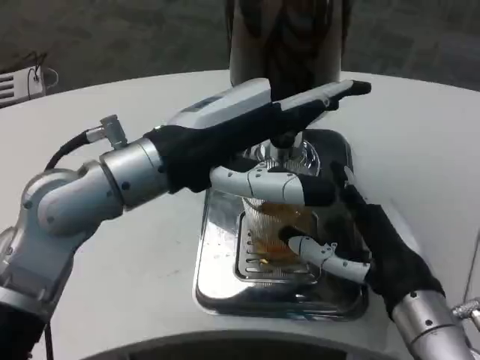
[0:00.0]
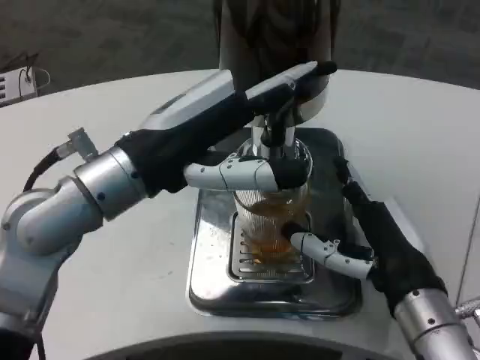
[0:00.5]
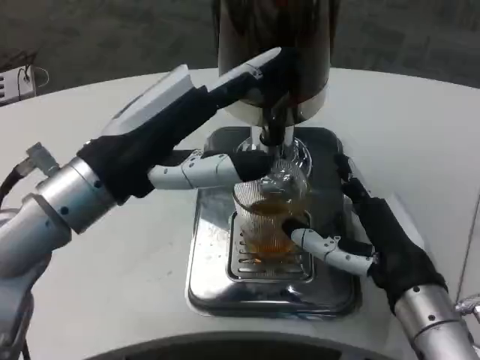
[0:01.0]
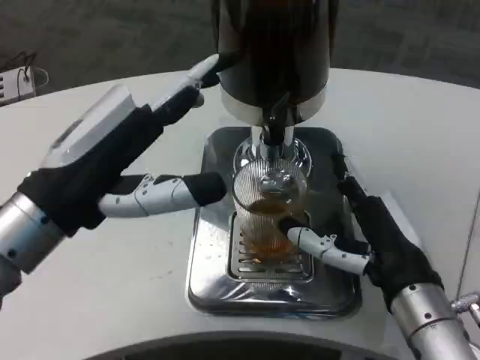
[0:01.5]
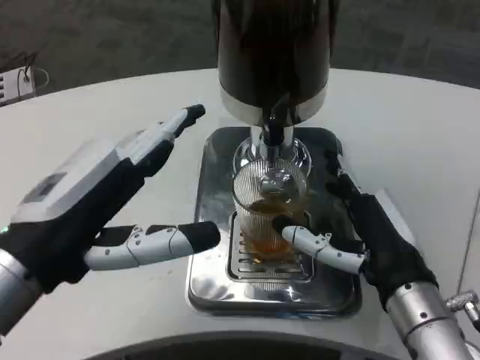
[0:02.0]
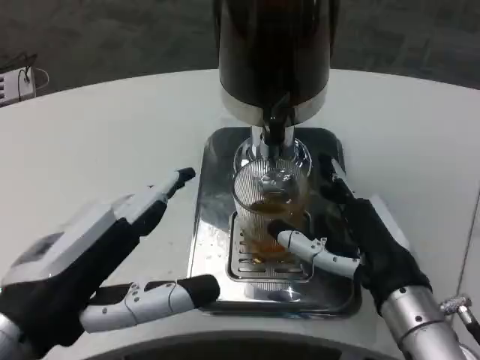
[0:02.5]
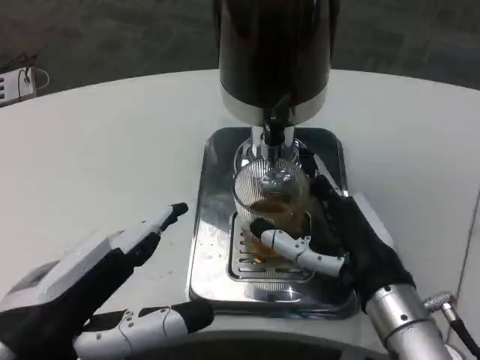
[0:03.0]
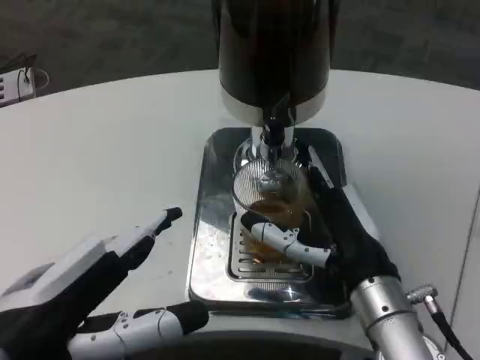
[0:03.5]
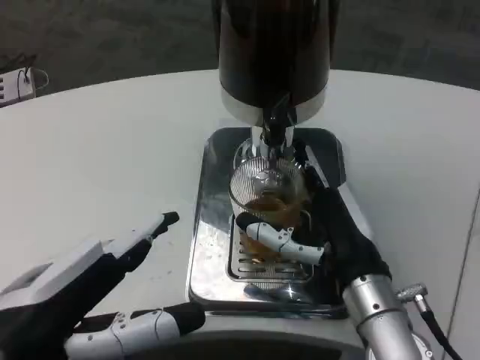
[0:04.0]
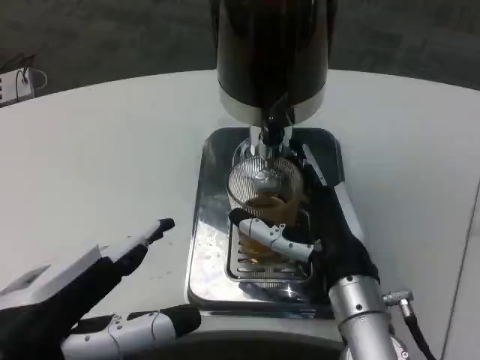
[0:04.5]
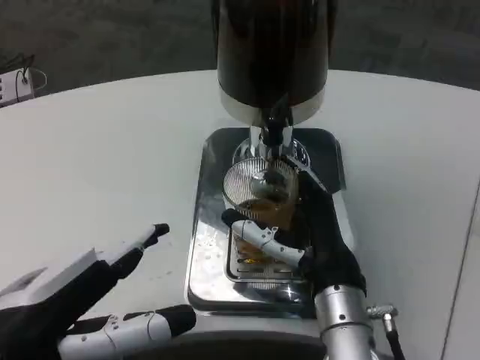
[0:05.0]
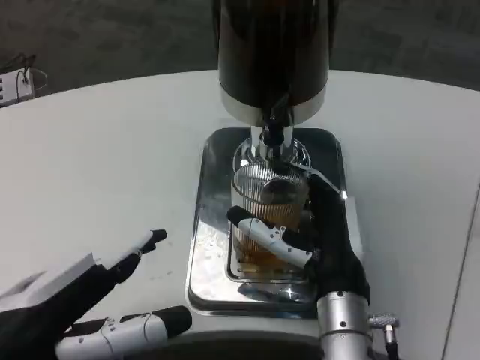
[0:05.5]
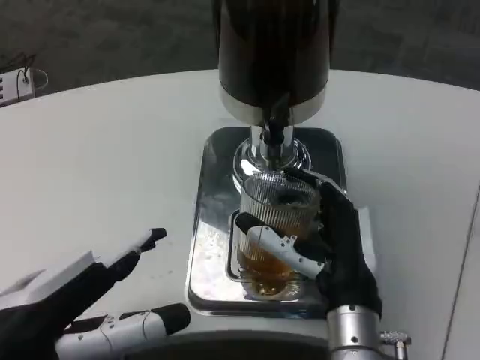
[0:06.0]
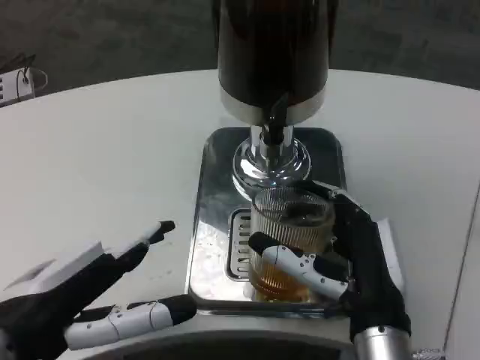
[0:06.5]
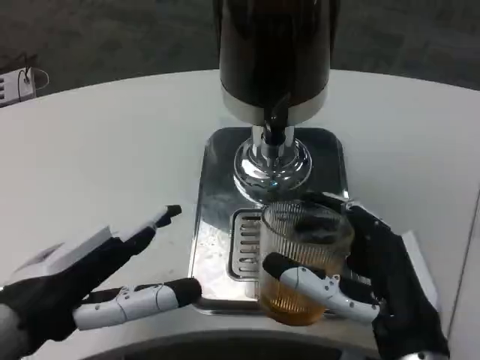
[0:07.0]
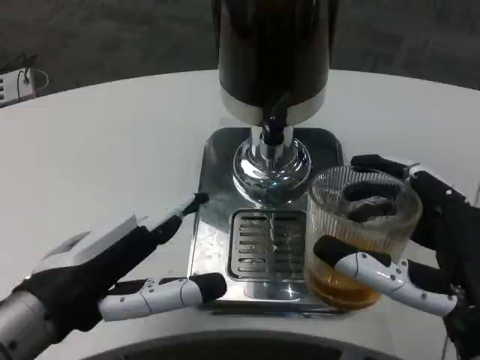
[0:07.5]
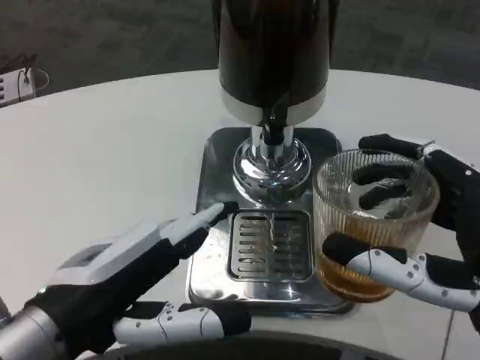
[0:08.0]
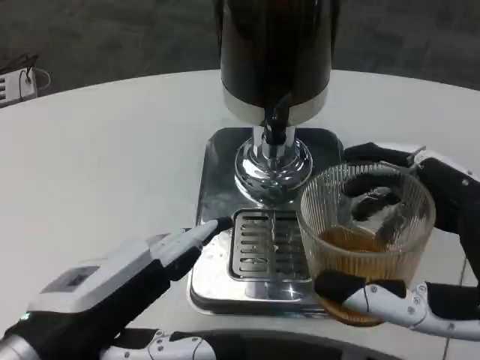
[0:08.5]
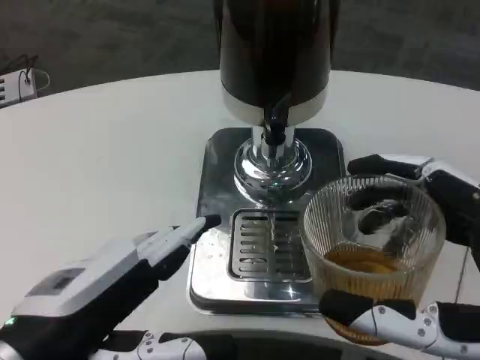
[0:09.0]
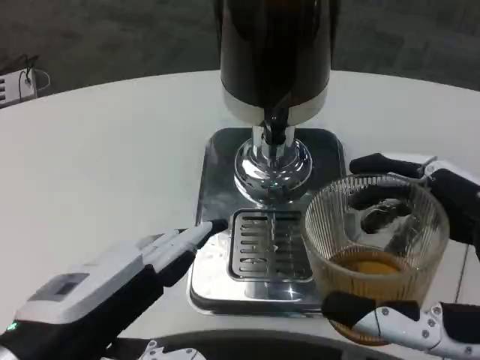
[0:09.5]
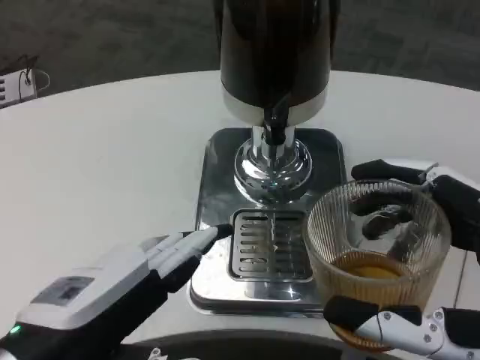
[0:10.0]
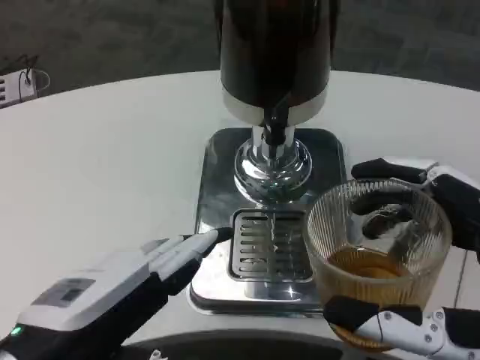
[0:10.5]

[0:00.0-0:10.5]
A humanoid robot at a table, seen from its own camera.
Task of the whole recording: Grasp the cup under the faucet to collect the drink, then remove the cup.
0:00.0 to 0:02.0: The left hand heads backward, to the left and downward, covering some 15 cm.
0:02.0 to 0:04.0: The left hand ends up approximately 5 cm from where it was.
0:04.0 to 0:06.5: The right hand moves about 5 cm.
0:06.5 to 0:08.5: The right hand travels backward, to the right and upward by about 15 cm.

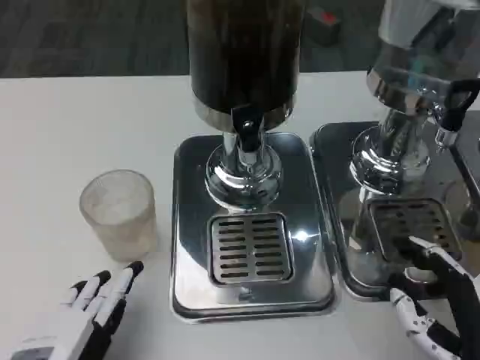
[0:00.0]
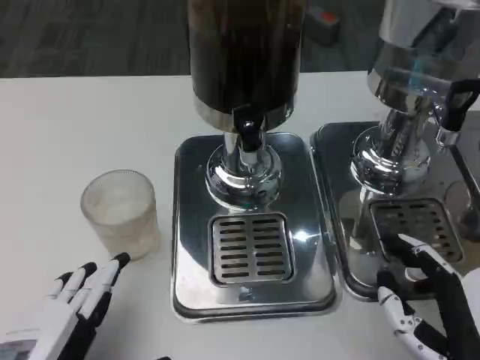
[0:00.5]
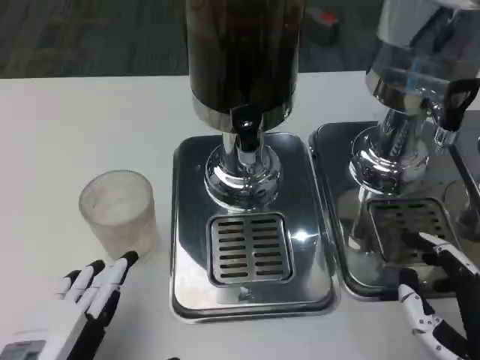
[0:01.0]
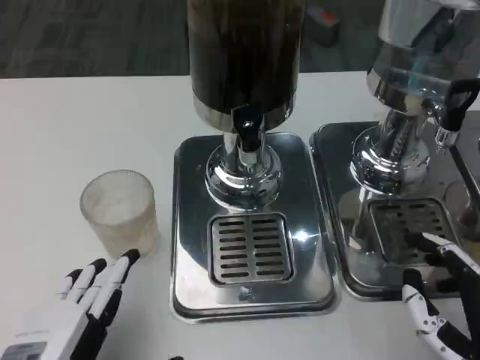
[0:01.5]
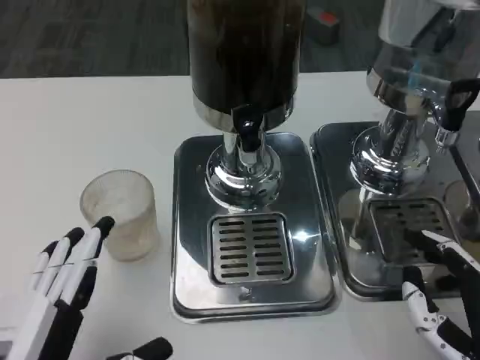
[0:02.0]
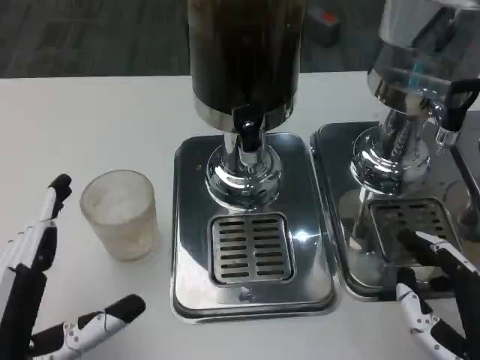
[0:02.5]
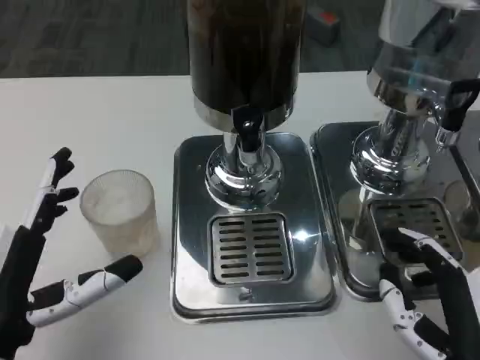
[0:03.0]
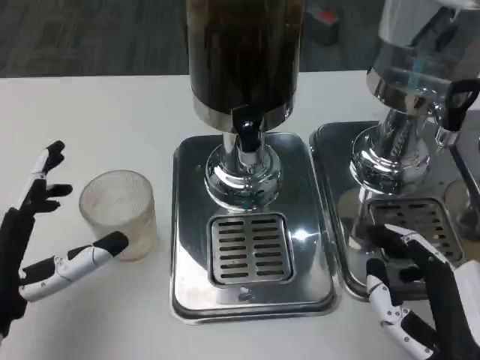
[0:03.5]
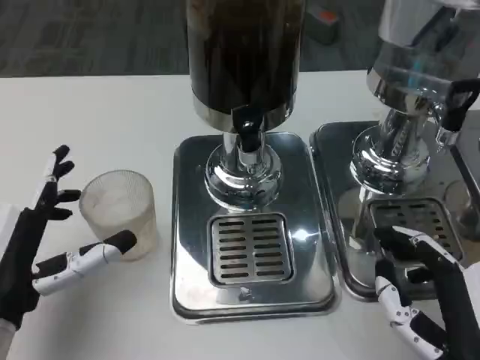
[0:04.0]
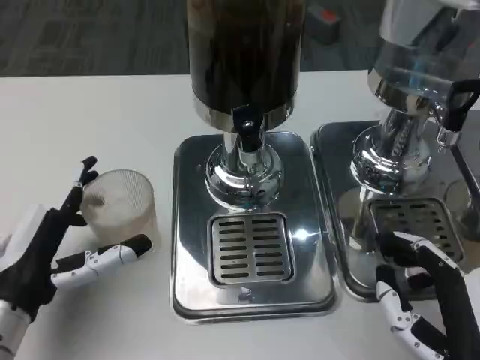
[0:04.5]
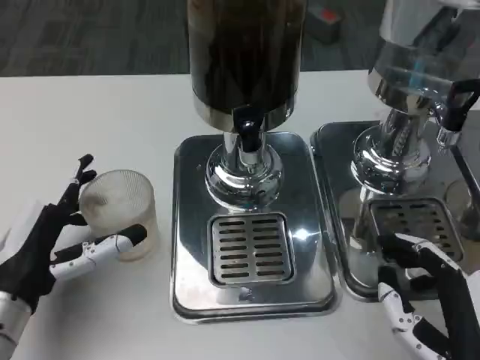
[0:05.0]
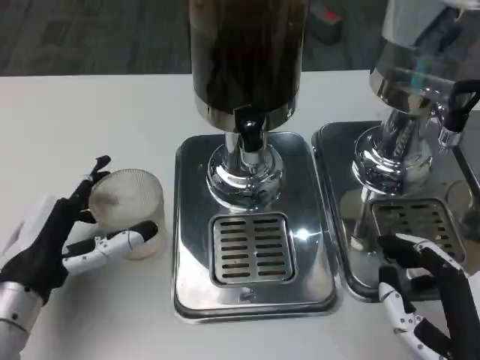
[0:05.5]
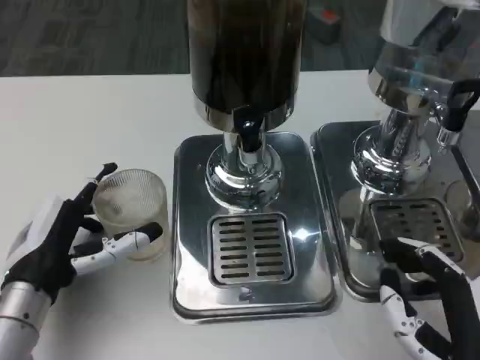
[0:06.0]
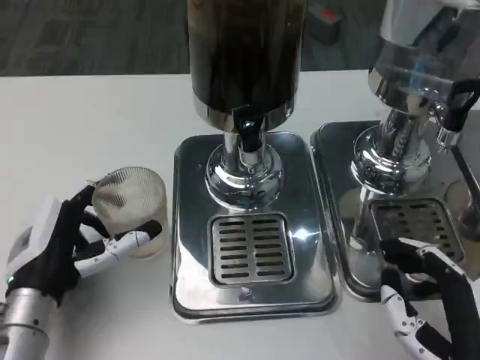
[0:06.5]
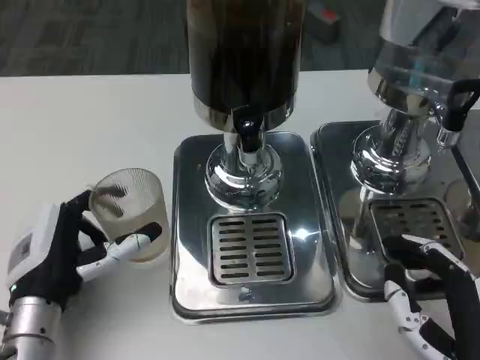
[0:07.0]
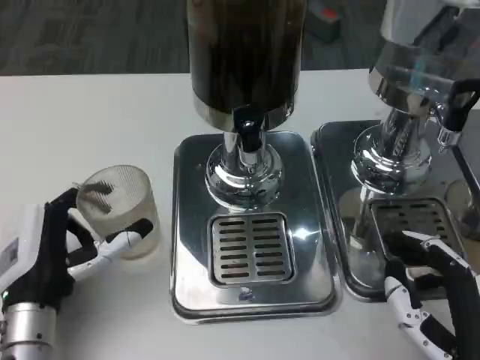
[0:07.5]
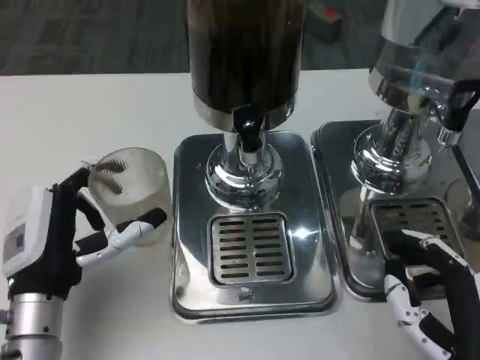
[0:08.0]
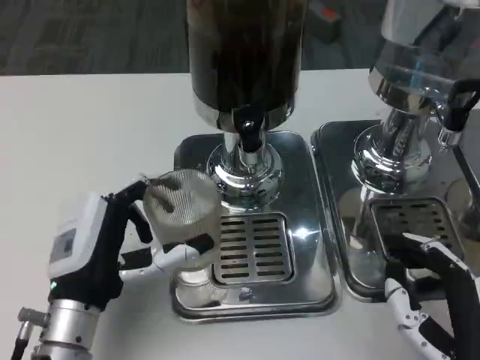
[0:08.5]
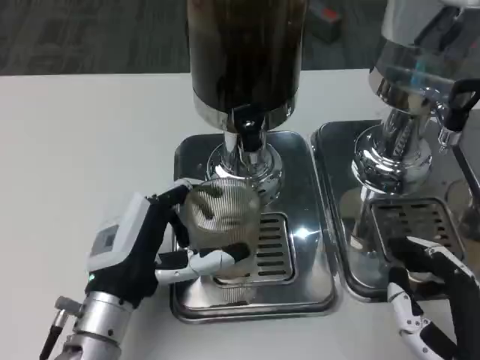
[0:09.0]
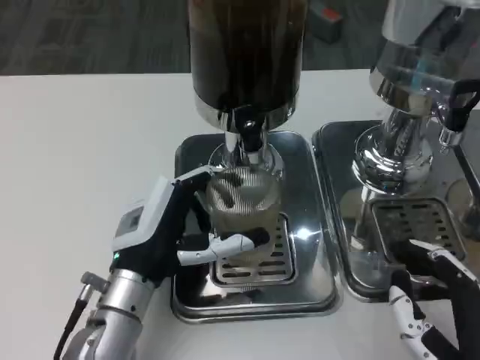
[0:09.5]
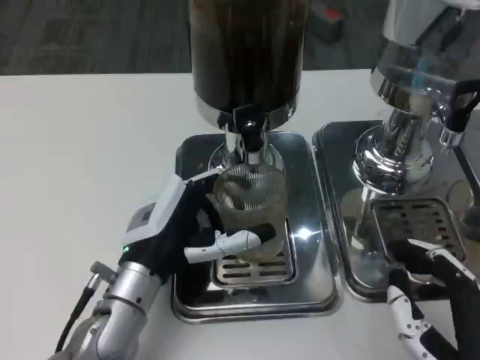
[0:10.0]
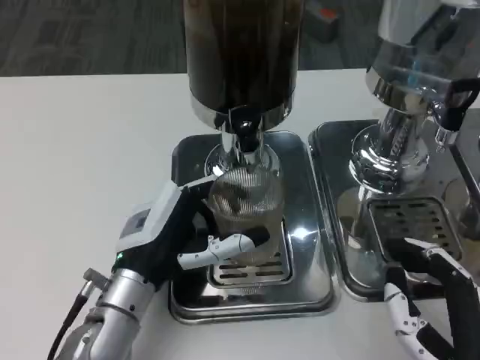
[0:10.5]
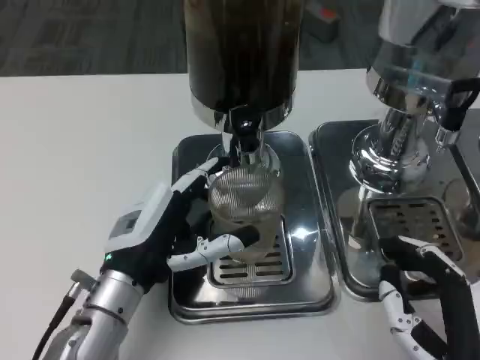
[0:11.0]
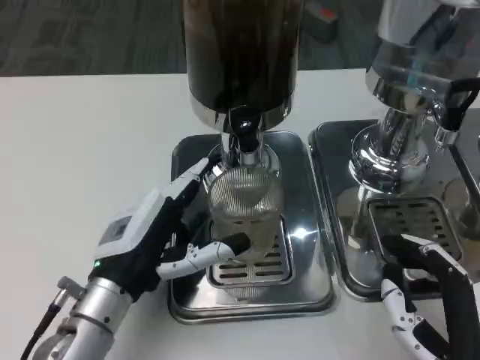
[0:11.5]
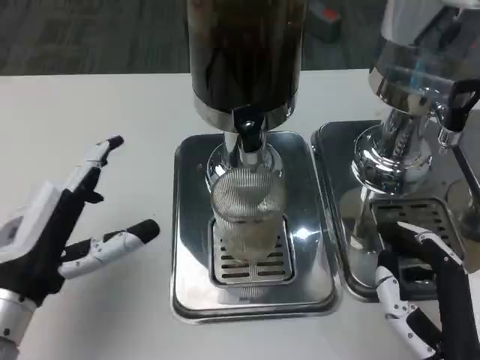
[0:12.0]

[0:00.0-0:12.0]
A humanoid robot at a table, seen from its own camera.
Task of the whole recording: Grasp the cup under the faucet to collect the drink, then remove the cup.
0:00.0 to 0:02.0: The hands stay close to where they were, moving slightly.
0:02.0 to 0:04.0: The left hand goes about 10 cm forward.
0:04.0 to 0:06.0: The hands stay close to where they were, moving slightly.
0:08.0 to 0:10.0: The left hand goes about 5 cm to the right.
0:10.0 to 0:12.0: The left hand is displaced to the left and backward by roughly 10 cm.

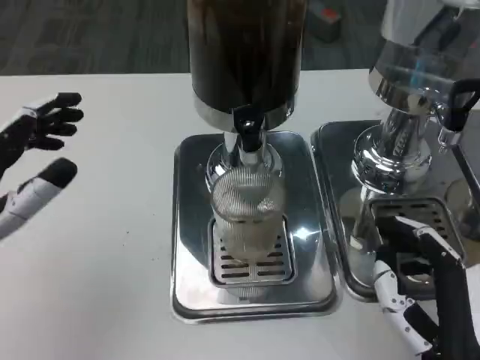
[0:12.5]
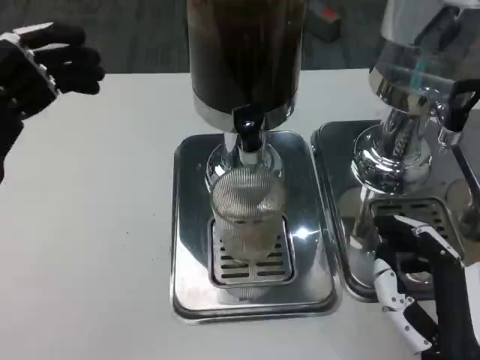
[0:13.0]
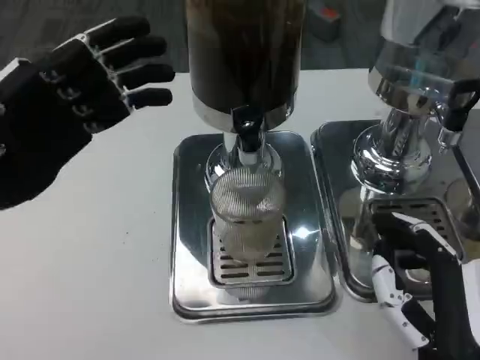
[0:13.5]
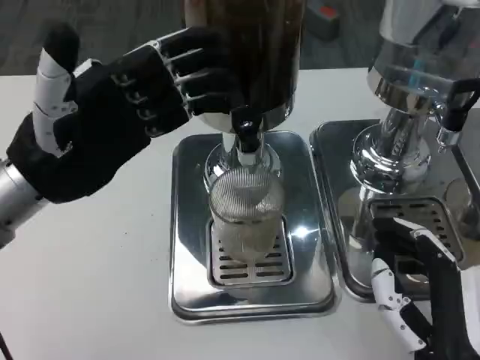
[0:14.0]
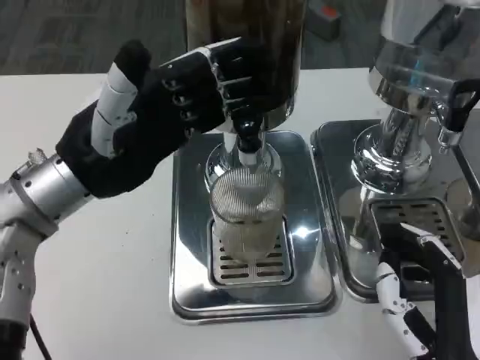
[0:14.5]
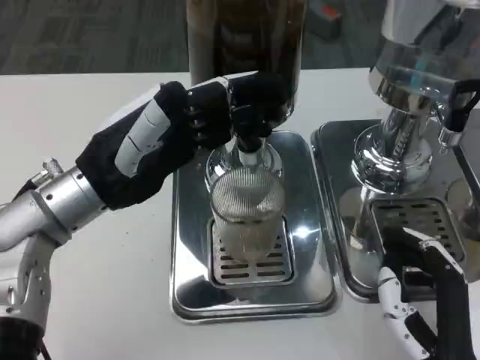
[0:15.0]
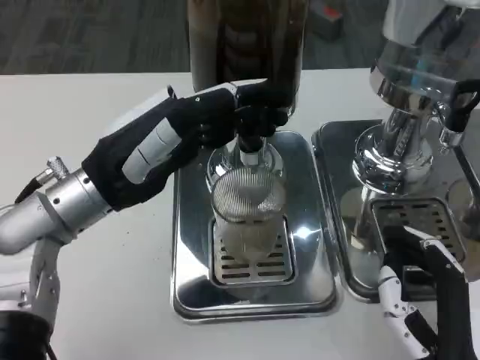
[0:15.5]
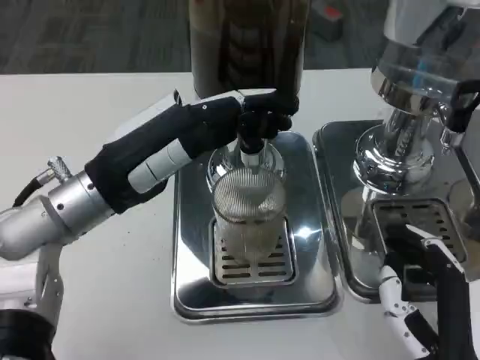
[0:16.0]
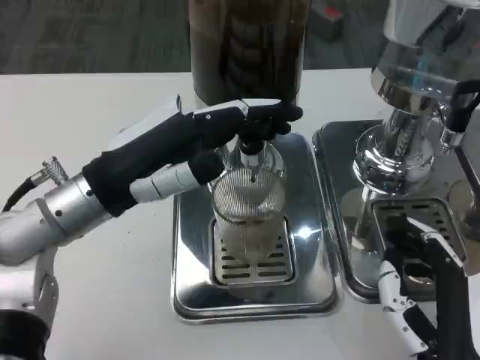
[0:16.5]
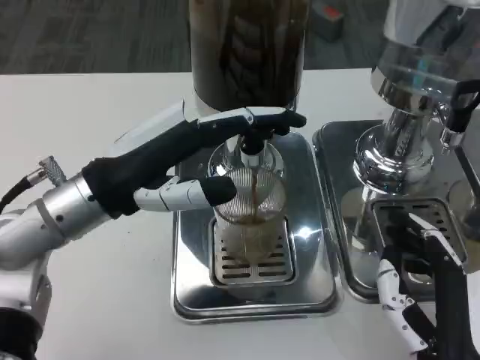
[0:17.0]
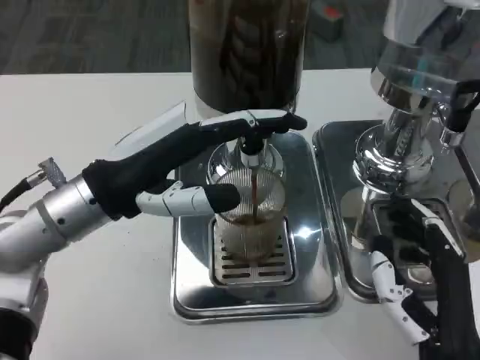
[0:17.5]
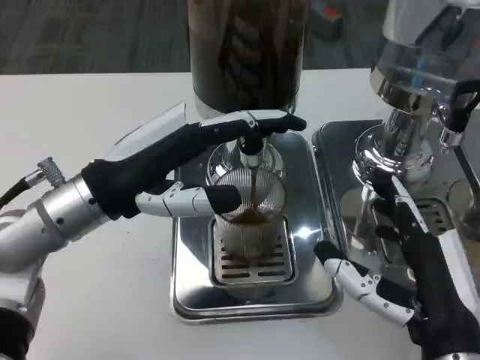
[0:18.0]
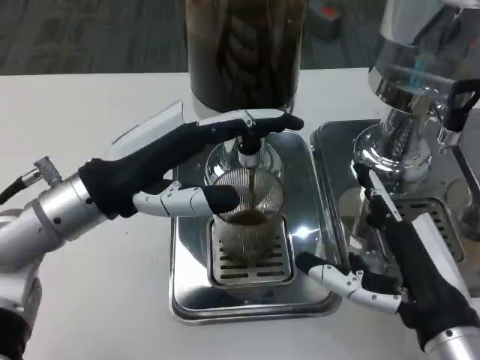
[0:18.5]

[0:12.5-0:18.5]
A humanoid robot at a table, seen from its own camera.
Task of the whole recording: Grasp the cup under the faucet to collect the drink, then remove the cup.
0:12.5 to 0:14.5: The left hand is displaced forward and to the right by about 10 cm.
0:16.5 to 0:18.5: The right hand moves roughly 5 cm.
